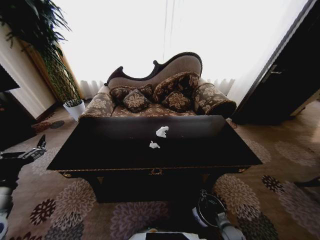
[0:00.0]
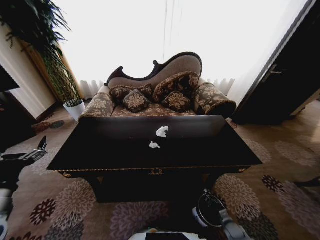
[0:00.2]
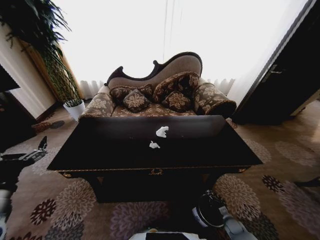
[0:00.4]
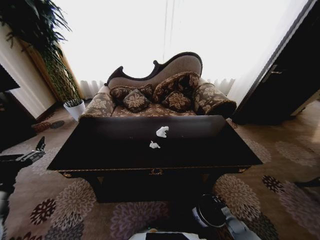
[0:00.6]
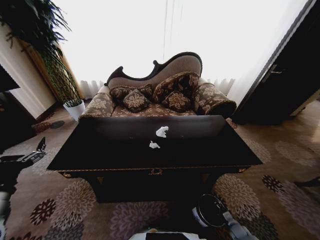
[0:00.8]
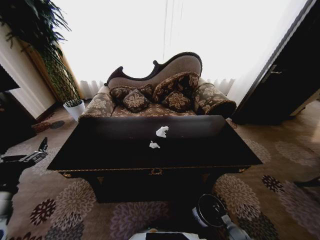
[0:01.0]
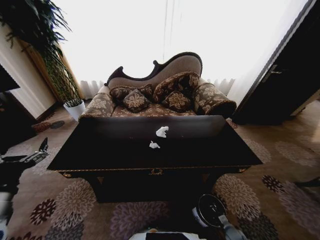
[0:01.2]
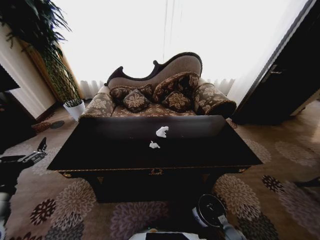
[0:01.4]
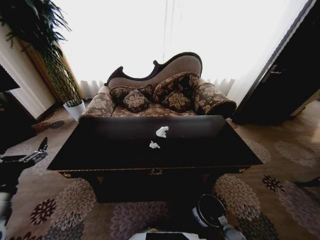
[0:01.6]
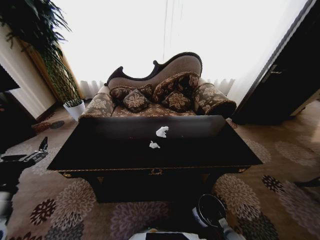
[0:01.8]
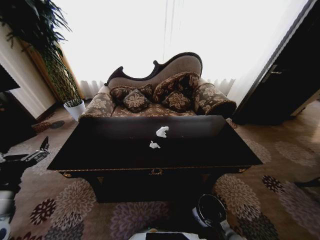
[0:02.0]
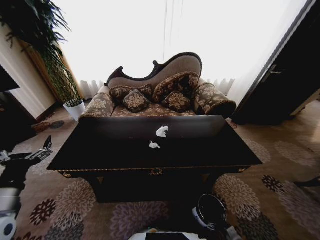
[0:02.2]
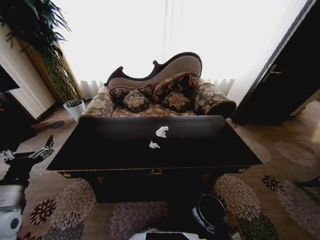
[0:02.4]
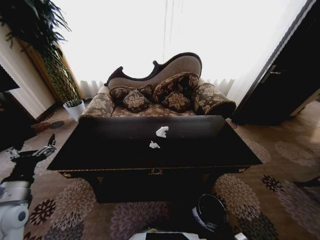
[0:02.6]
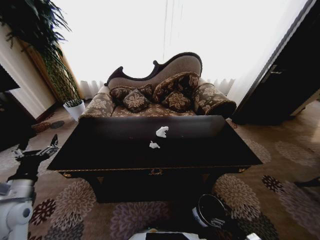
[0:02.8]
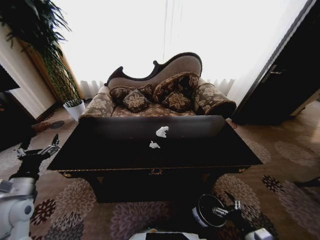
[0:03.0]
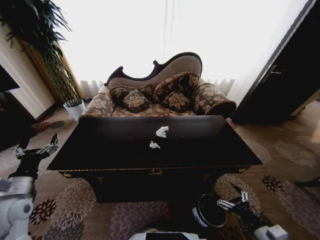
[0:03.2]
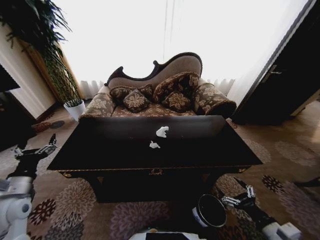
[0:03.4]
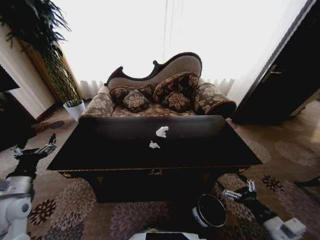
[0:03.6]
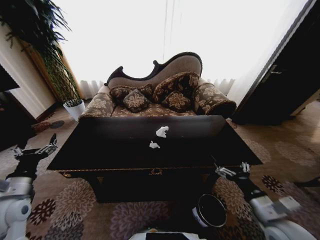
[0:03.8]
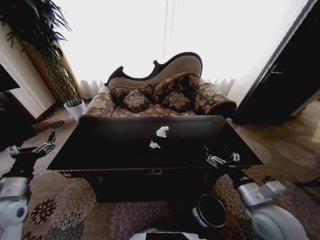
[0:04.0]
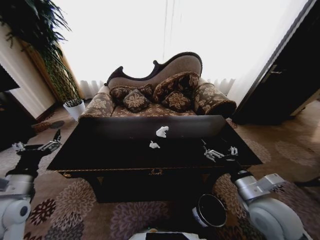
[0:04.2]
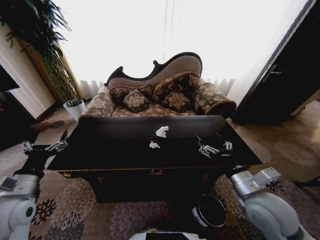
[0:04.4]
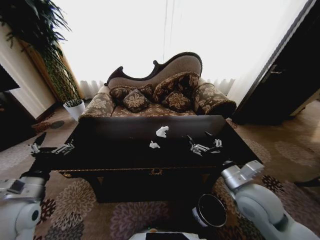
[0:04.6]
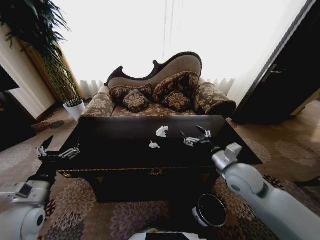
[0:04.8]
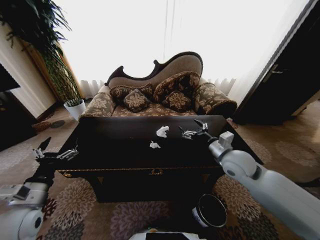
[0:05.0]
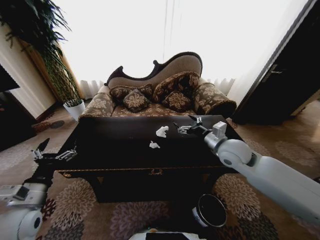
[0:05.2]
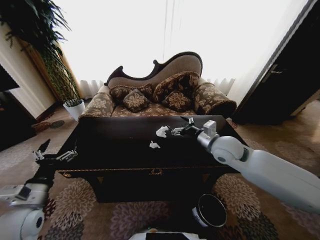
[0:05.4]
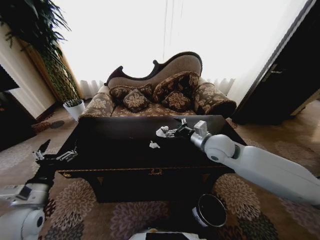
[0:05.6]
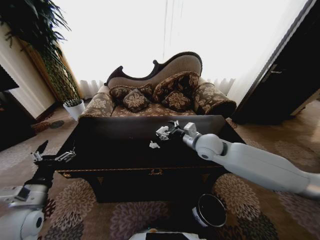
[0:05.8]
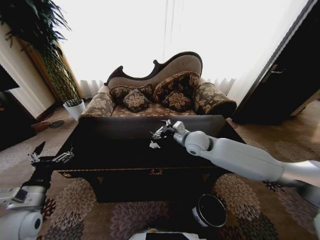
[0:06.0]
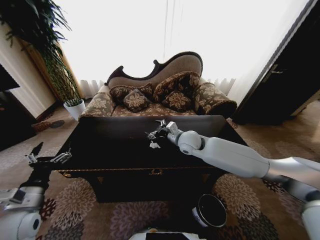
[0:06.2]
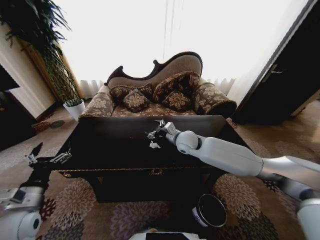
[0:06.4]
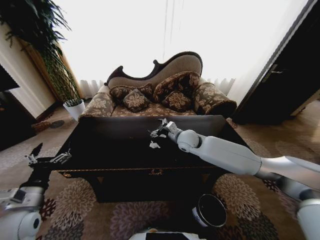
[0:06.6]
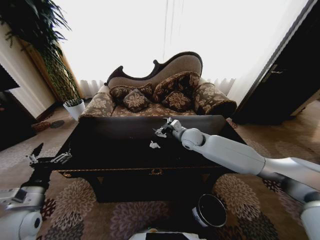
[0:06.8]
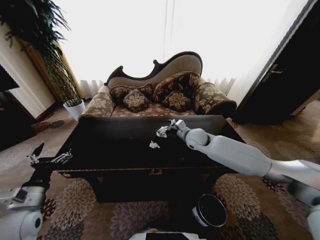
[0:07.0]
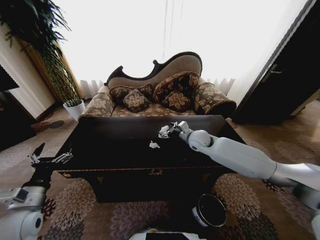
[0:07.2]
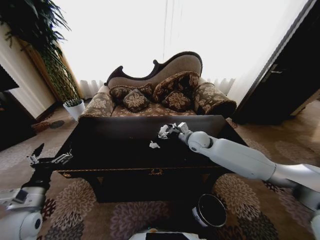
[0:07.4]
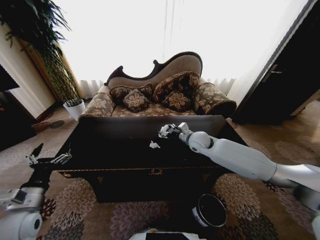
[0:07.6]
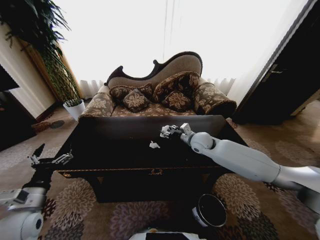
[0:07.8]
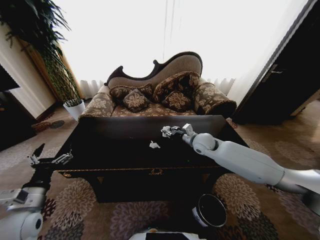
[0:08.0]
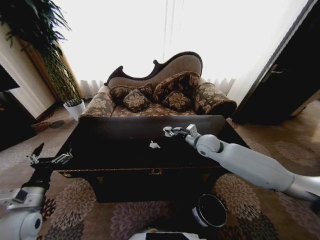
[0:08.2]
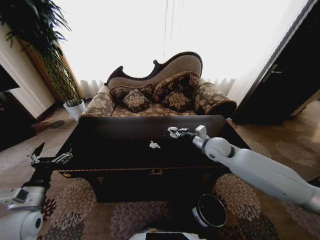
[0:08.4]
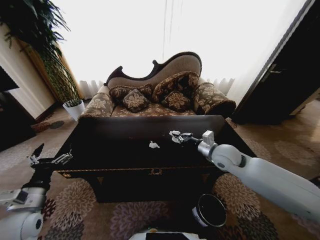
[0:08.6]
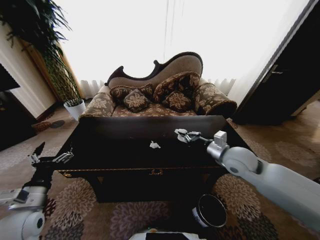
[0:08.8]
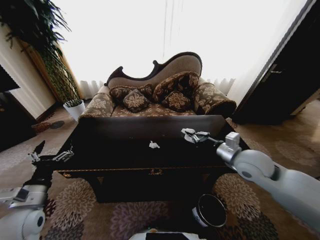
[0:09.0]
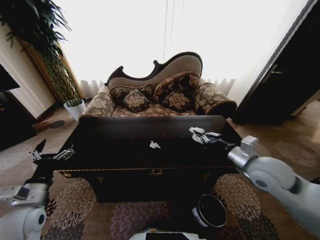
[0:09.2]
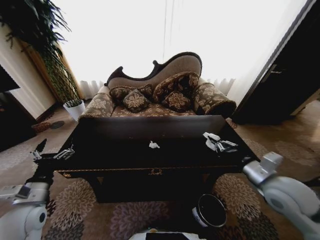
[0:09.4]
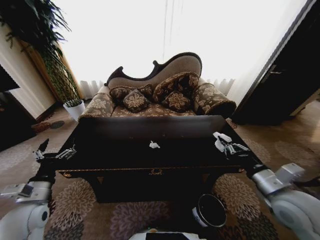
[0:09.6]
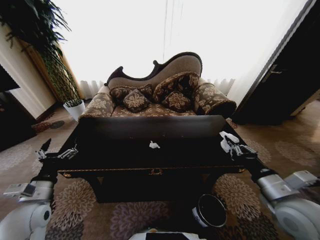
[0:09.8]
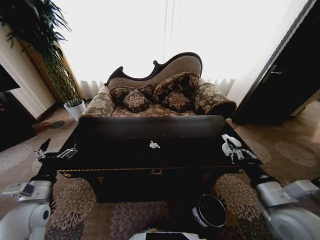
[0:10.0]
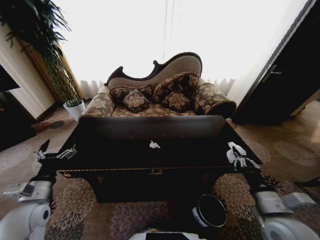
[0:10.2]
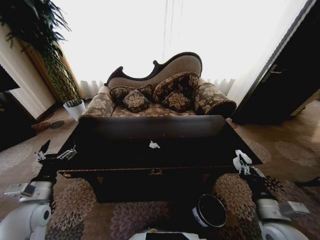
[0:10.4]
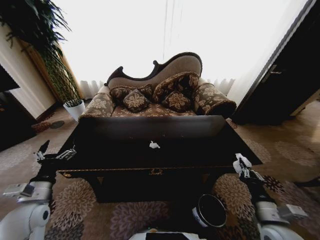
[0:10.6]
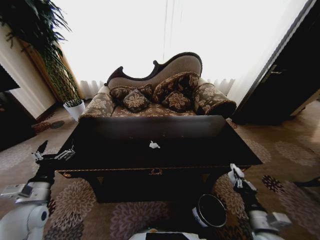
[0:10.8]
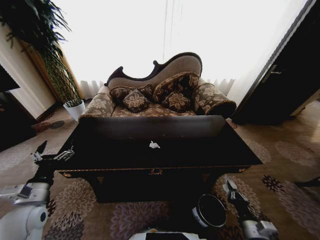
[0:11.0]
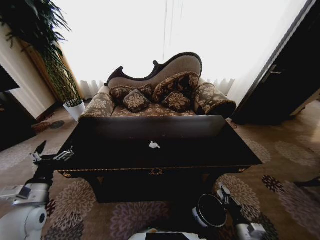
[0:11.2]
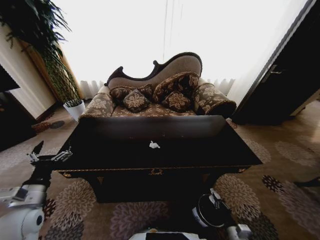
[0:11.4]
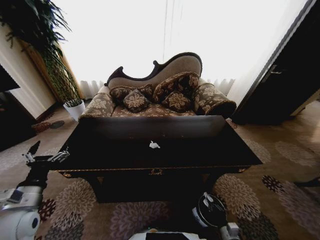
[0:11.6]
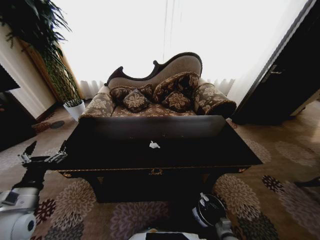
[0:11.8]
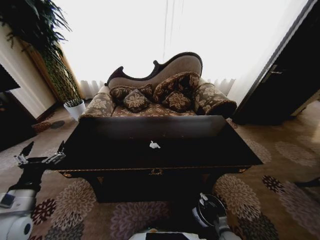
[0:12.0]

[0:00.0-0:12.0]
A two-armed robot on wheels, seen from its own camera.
Task of the whole recording: Move to the front of the table and place the trash on the table into the trash bin.
0:01.6 to 0:03.0: The left gripper shifts some 5 cm forward, while the right gripper moves upward, approximately 25 cm, and opens.
0:03.0 to 0:04.4: The right gripper goes approximately 25 cm upward, forward and to the left.
0:04.4 to 0:06.0: The right gripper goes approximately 25 cm forward and to the left.
0:06.0 to 0:07.6: The right gripper moves some 5 cm.
0:07.6 to 0:09.0: The right gripper is displaced backward and to the right by roughly 20 cm, and closes.
0:09.0 to 0:10.4: The right gripper is displaced backward and downward by roughly 20 cm.
0:10.4 to 0:12.0: The right gripper goes approximately 35 cm downward.

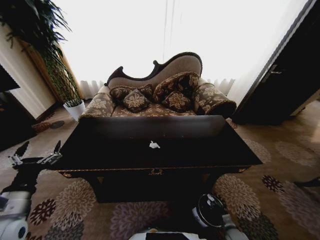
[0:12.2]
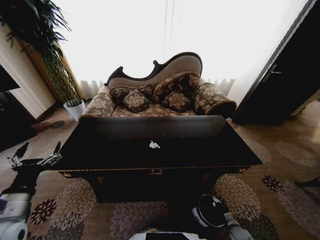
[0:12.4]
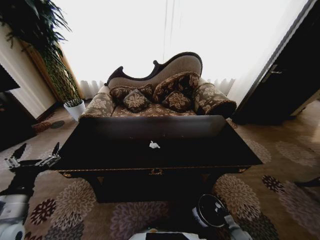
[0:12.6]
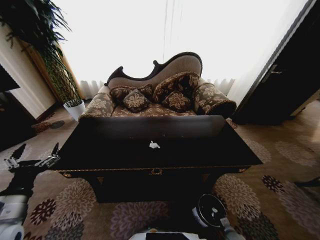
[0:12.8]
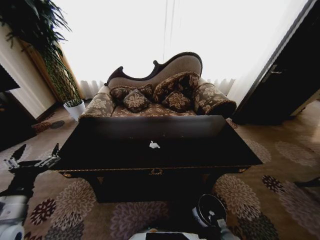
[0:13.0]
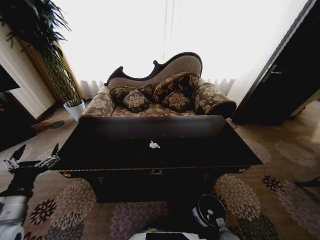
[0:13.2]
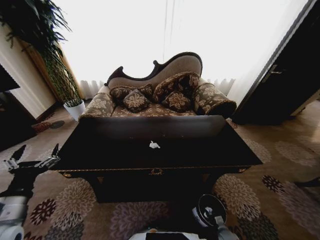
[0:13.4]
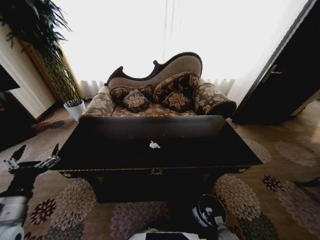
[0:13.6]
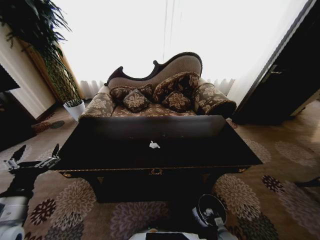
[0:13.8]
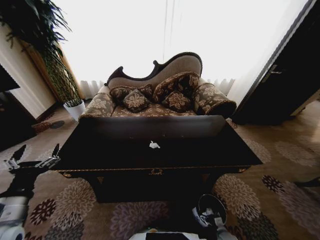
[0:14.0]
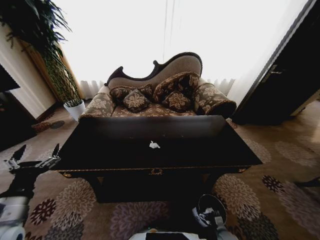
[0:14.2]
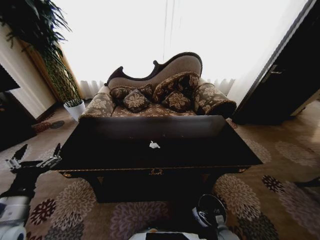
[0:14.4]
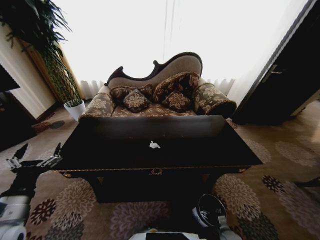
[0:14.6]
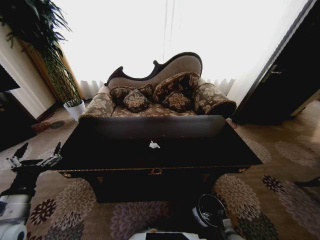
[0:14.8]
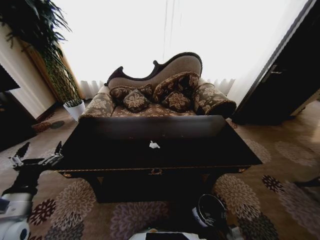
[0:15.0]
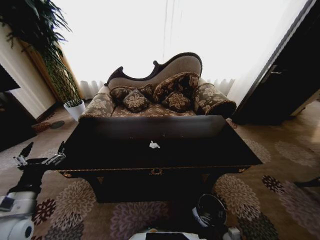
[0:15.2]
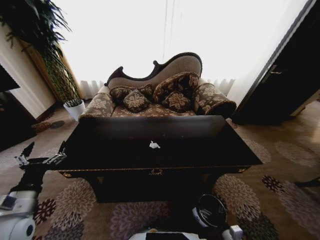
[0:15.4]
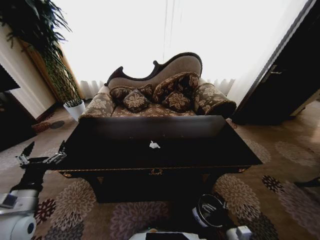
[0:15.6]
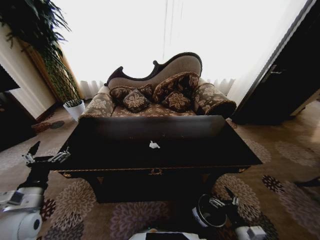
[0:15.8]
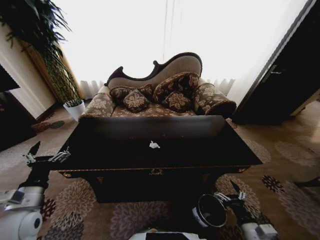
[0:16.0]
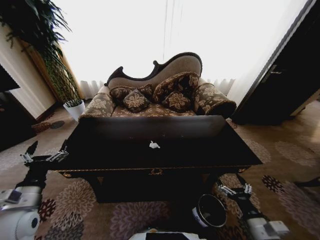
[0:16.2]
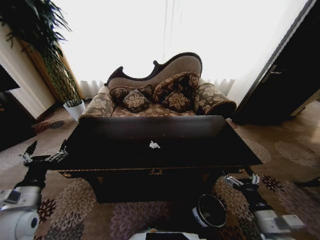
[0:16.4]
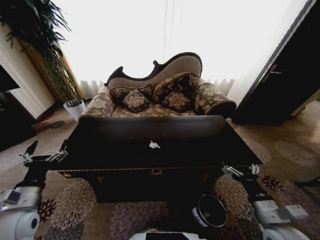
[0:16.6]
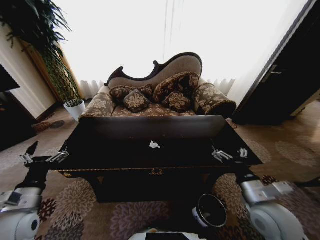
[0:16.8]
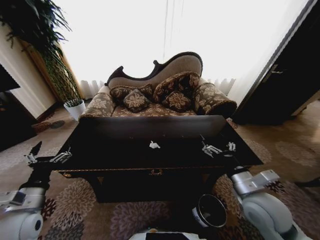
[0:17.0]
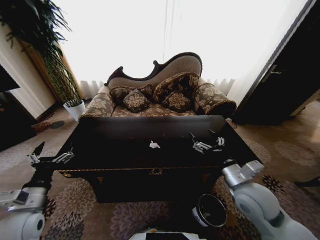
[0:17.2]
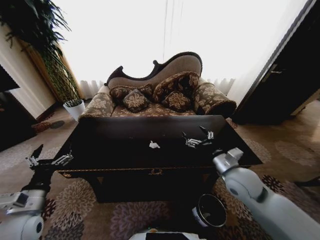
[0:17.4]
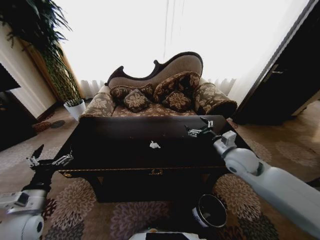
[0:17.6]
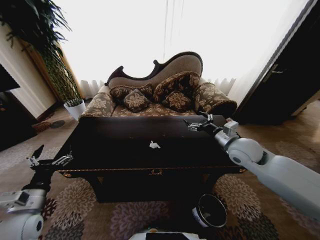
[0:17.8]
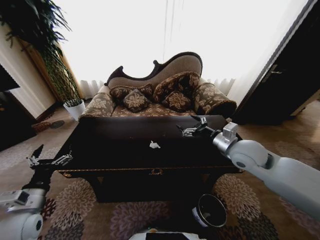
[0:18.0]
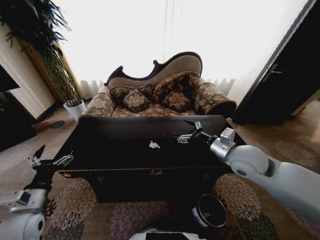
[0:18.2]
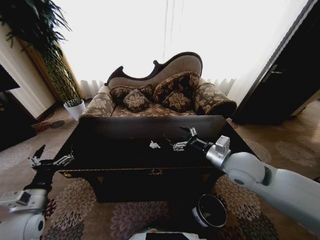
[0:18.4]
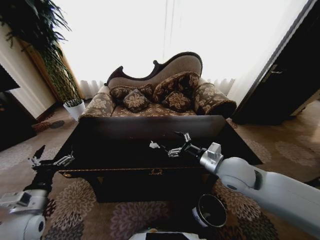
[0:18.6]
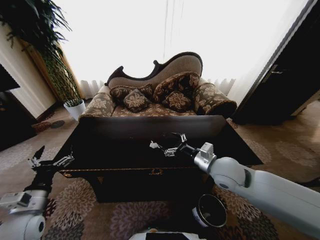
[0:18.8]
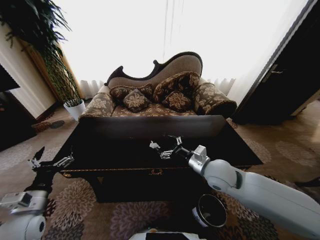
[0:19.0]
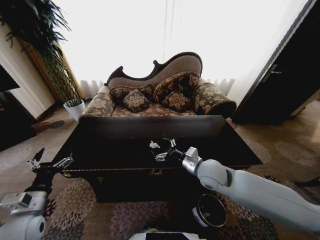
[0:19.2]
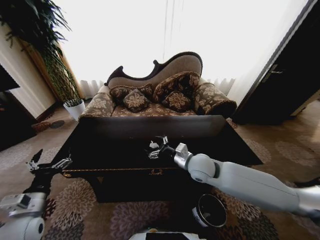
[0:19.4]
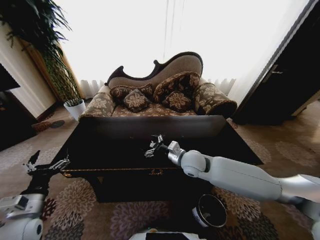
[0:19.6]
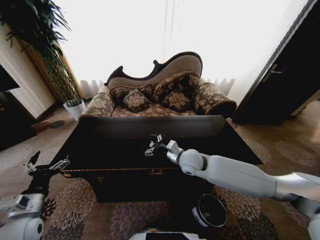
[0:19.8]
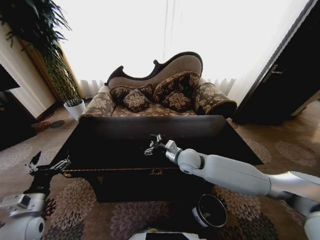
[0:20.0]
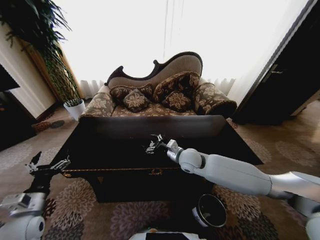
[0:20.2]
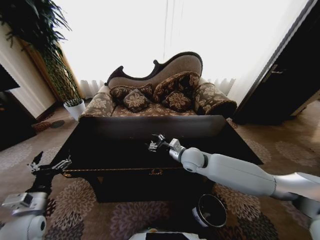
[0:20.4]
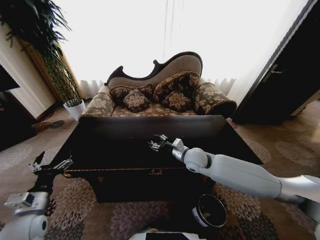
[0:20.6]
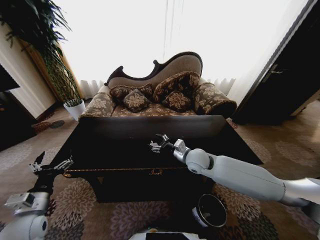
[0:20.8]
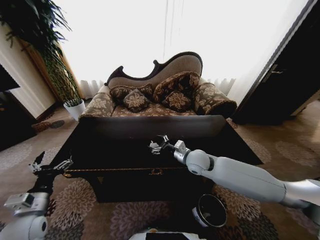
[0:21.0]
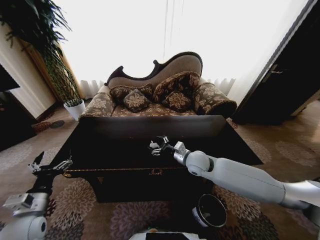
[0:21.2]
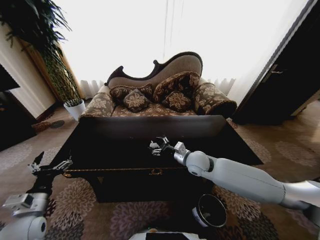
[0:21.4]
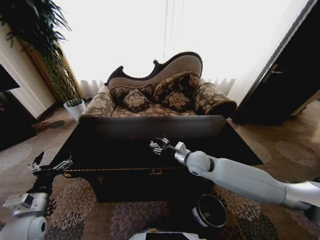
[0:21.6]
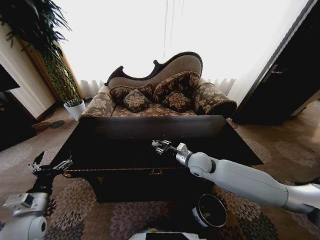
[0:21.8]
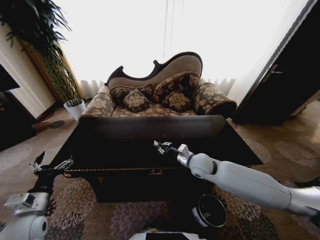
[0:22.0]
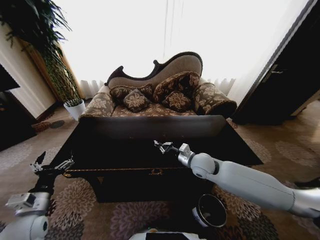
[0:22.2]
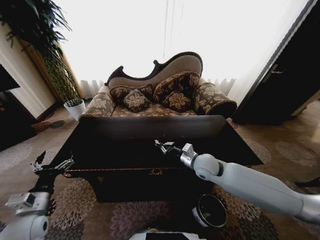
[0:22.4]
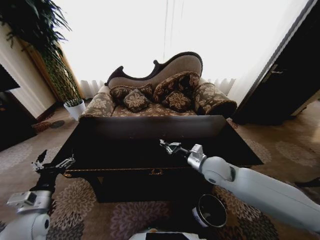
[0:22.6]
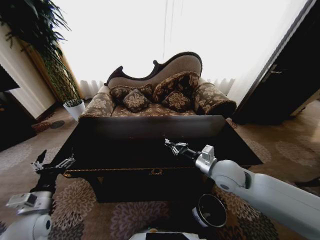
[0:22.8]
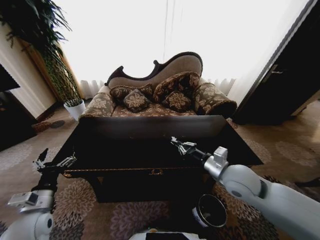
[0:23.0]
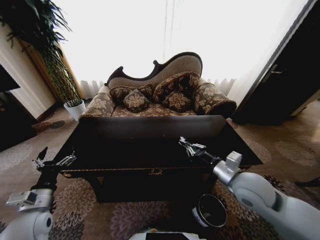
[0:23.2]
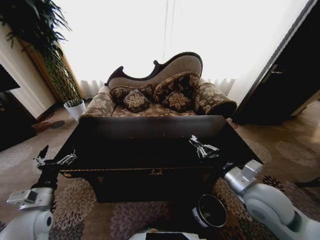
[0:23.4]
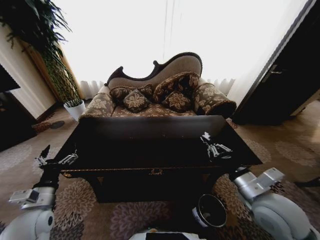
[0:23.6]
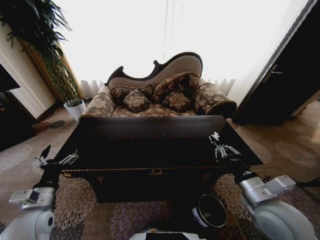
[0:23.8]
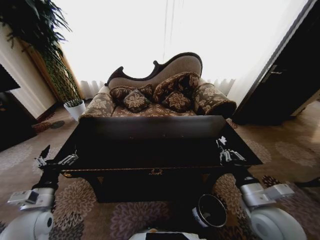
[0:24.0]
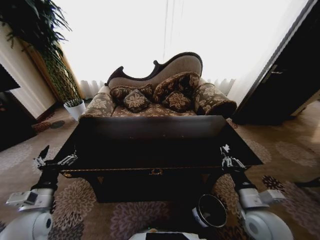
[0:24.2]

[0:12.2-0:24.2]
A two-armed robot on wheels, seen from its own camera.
Task of the whole recording: Move to the front of the table and place the trash on the table into the trash bin.
0:12.2 to 0:13.8: The right gripper travels downward by some 5 cm, and opens.
0:15.2 to 0:16.6: The right gripper goes about 30 cm upward.
0:16.6 to 0:18.2: The right gripper shifts about 25 cm forward and upward.
0:18.2 to 0:19.8: The right gripper shifts roughly 15 cm to the left and downward.
0:19.8 to 0:21.2: The grippers stay close to where they were, moving slightly.
0:21.2 to 0:22.6: The right gripper moves some 5 cm, and closes its fingers.
0:22.6 to 0:24.2: The right gripper travels backward and to the right by roughly 20 cm.
